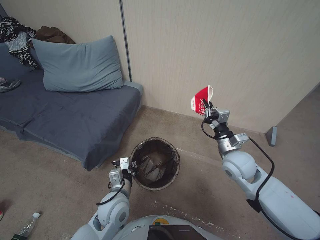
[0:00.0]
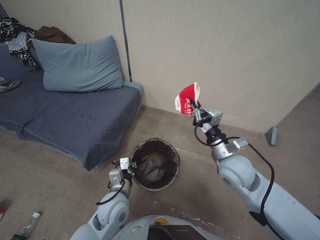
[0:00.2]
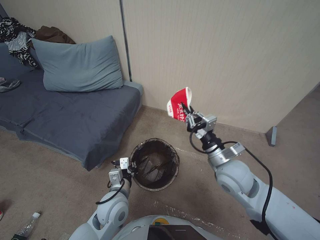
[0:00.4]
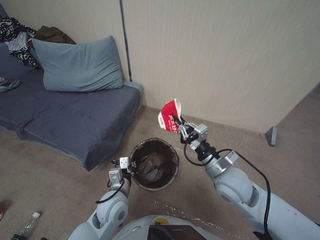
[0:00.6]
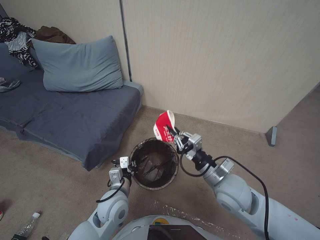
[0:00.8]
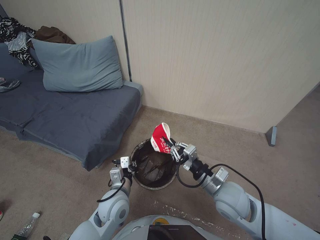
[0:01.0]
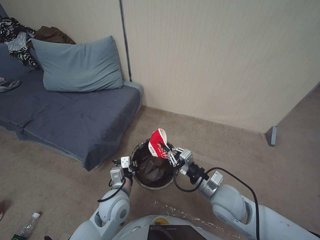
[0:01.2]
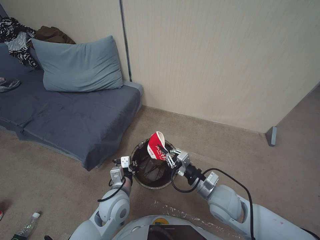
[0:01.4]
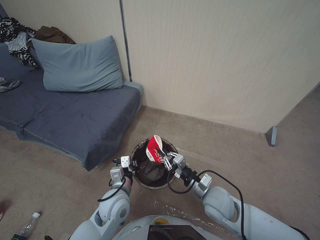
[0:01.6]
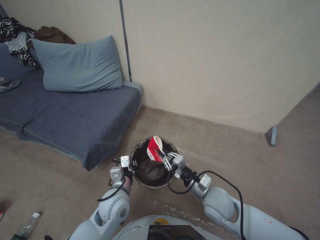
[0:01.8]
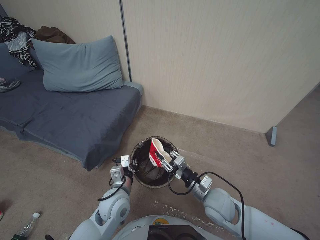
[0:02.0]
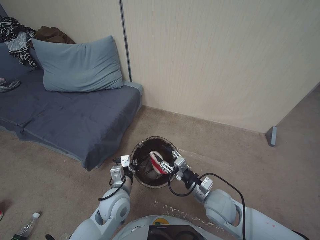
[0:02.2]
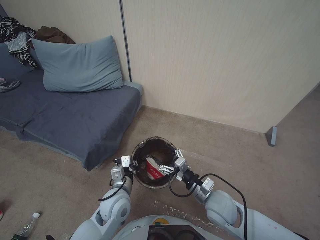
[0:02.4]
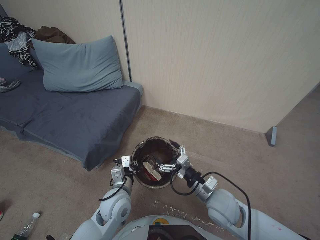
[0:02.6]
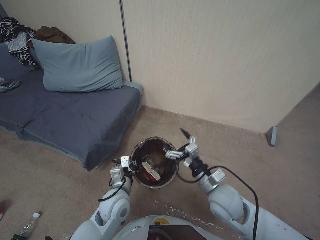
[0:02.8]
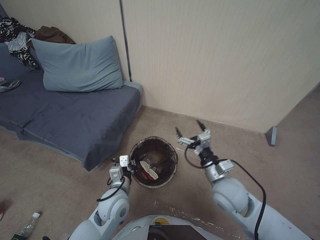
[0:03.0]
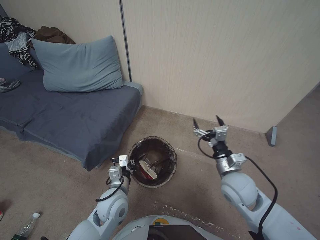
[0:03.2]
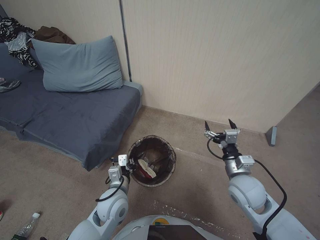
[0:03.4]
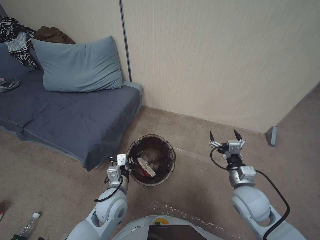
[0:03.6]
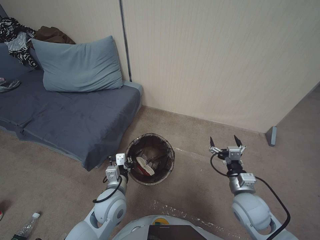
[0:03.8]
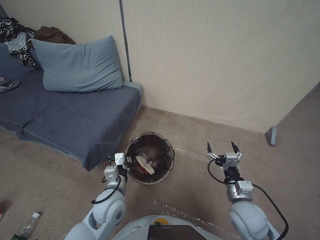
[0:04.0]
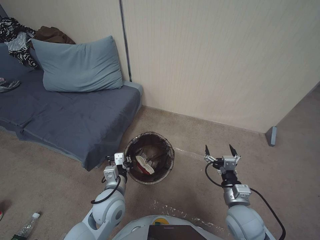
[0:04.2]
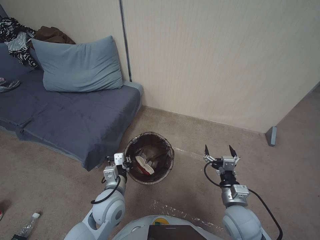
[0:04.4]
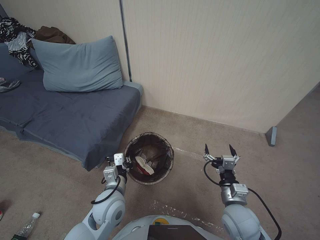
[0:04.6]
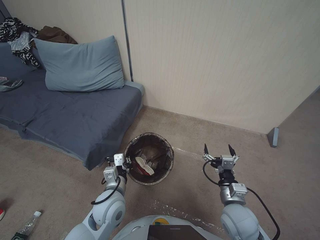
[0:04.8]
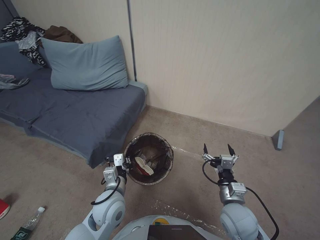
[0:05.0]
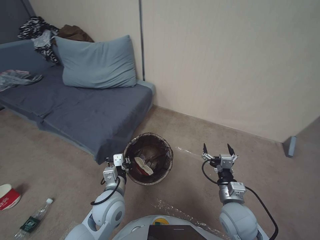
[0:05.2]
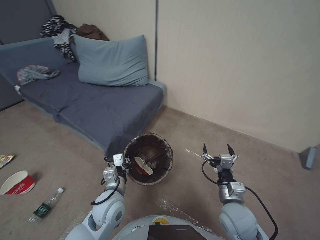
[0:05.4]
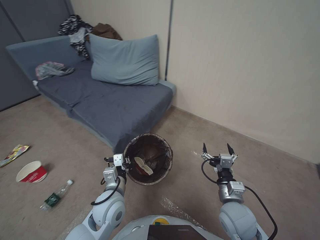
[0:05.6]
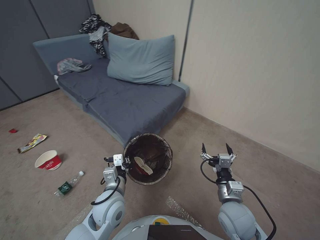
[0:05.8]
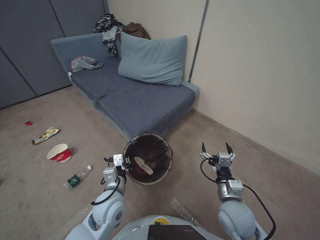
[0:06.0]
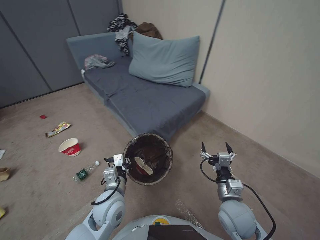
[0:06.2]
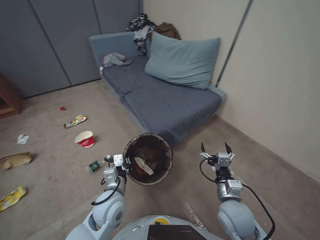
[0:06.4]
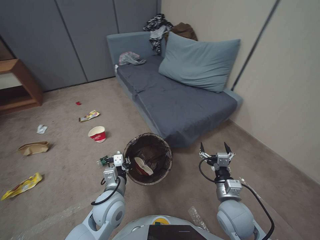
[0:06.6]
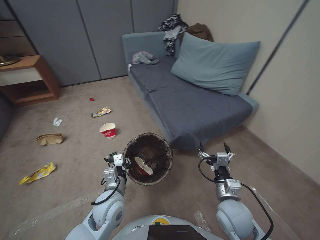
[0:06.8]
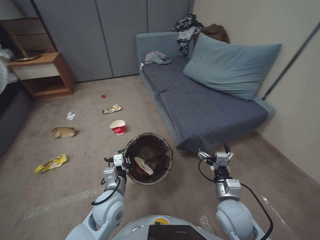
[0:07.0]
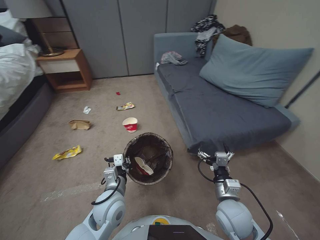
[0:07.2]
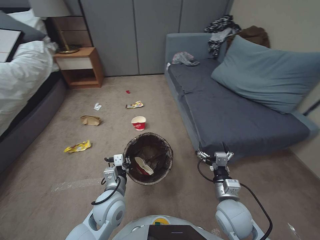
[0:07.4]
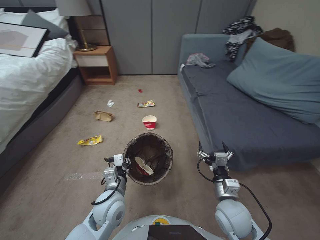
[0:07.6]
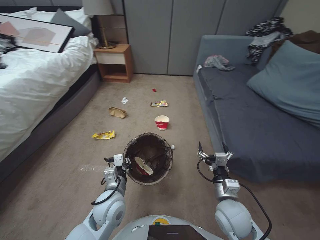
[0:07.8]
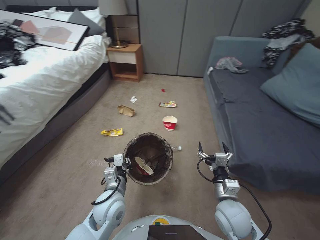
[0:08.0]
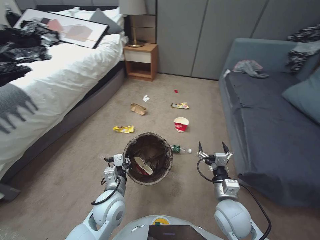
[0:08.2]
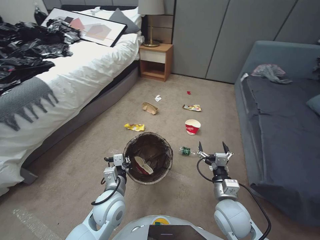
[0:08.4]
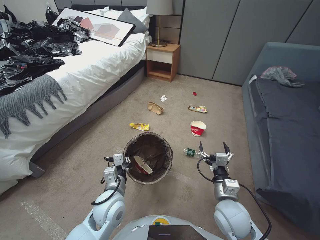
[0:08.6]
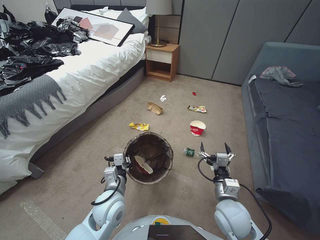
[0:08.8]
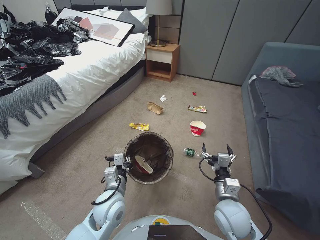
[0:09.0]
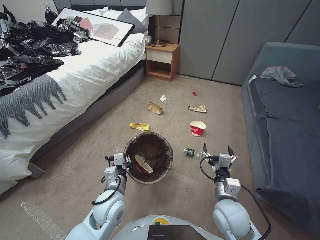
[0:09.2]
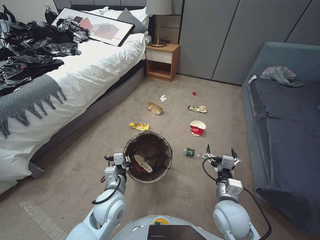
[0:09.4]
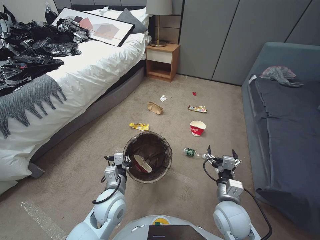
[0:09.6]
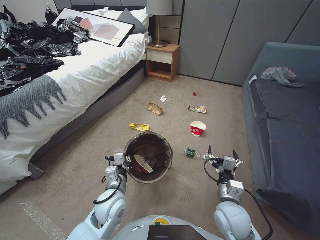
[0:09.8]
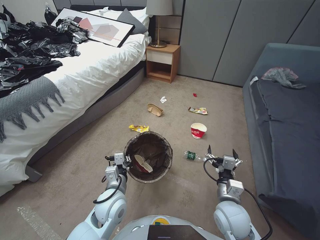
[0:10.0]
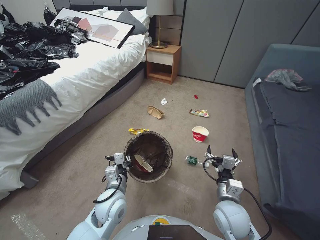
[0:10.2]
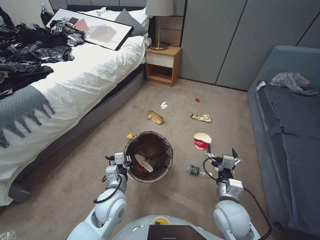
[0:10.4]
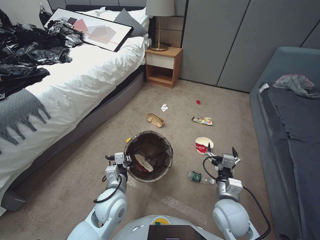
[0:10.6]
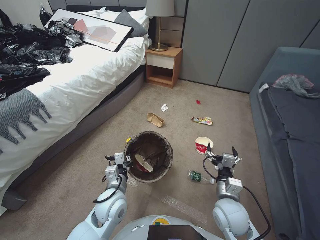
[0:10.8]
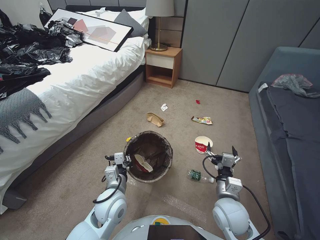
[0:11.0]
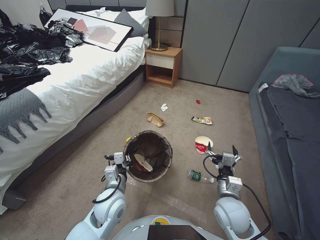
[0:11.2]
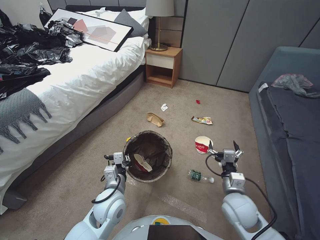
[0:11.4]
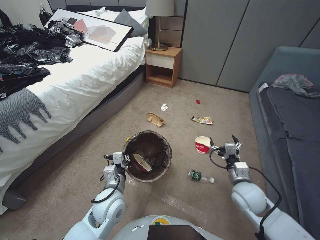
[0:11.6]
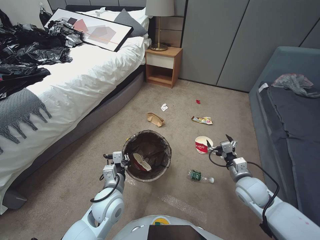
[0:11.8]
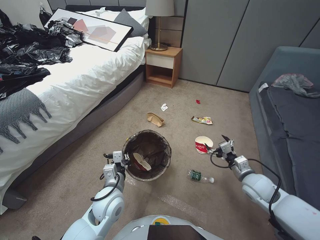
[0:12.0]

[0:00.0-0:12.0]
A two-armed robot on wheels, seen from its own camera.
Task of the whole recording: Pick up the trash bin, then pick up the garbage from the floor and place it into the trash bin.
0:00.0 to 0:01.6: The right gripper travels backward and to the left by approximately 15 cm.
0:01.6 to 0:03.0: The right gripper opens.
0:03.0 to 0:04.4: The right gripper is displaced backward and downward by about 10 cm.
0:10.4 to 0:12.0: The right gripper heads to the right and forward, covering about 15 cm.

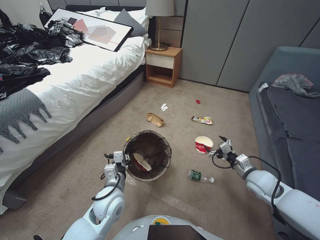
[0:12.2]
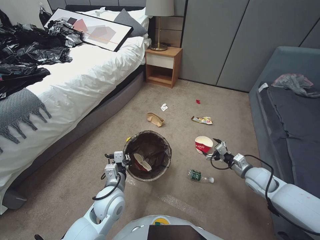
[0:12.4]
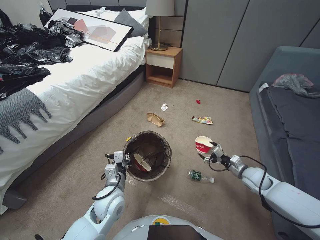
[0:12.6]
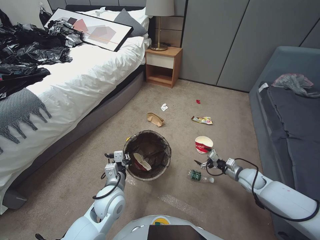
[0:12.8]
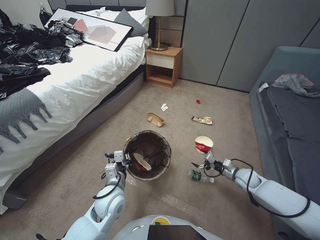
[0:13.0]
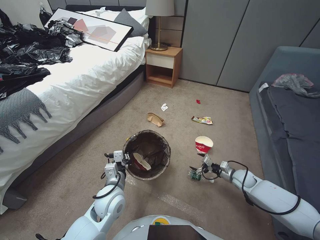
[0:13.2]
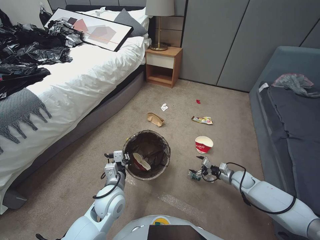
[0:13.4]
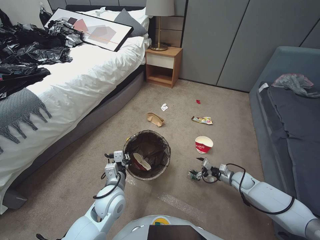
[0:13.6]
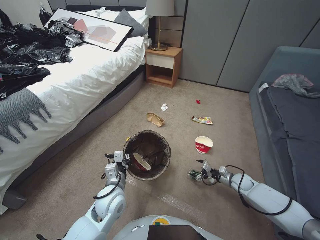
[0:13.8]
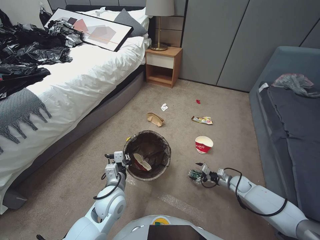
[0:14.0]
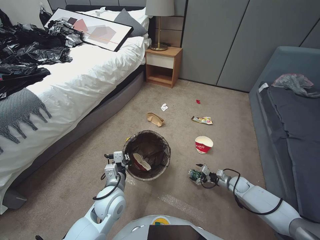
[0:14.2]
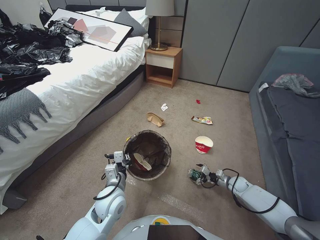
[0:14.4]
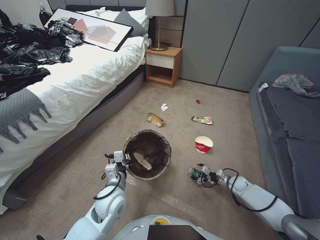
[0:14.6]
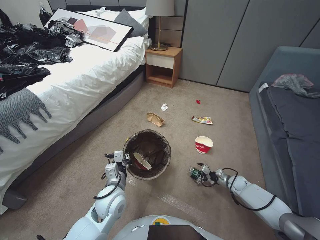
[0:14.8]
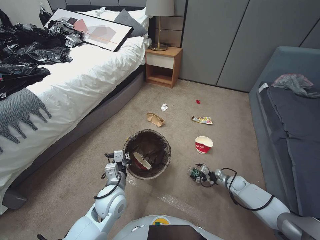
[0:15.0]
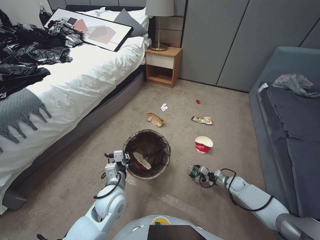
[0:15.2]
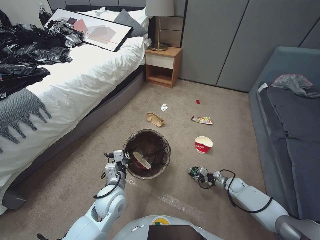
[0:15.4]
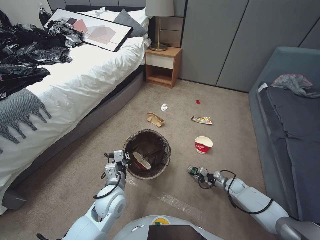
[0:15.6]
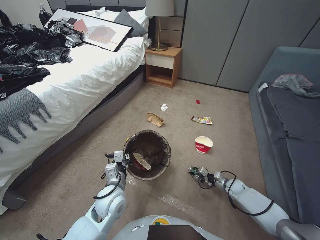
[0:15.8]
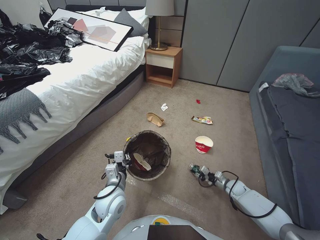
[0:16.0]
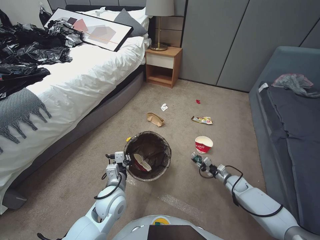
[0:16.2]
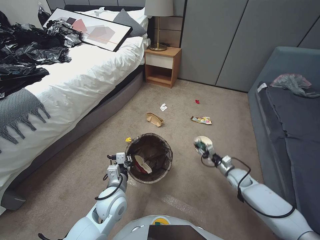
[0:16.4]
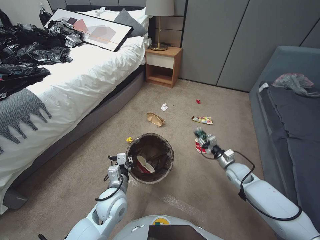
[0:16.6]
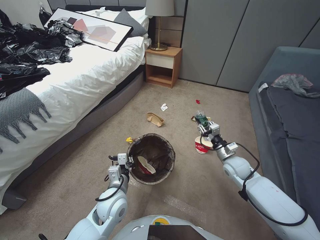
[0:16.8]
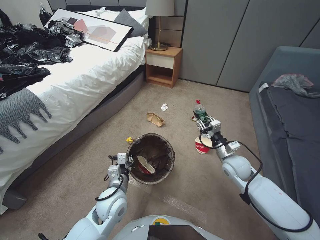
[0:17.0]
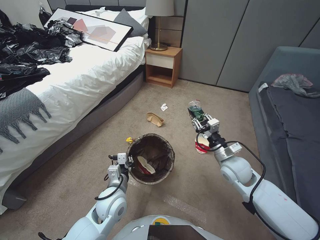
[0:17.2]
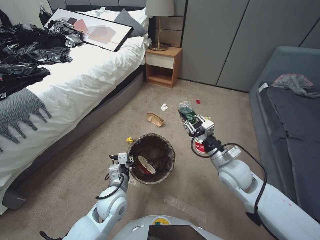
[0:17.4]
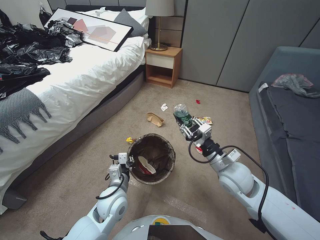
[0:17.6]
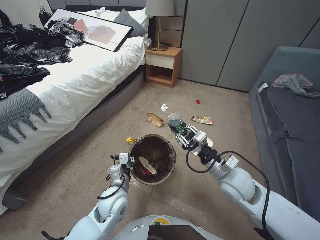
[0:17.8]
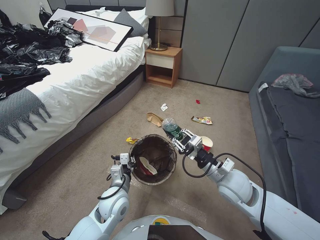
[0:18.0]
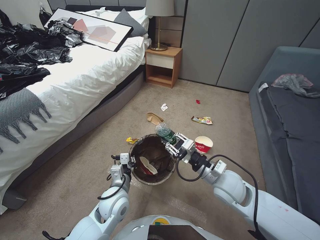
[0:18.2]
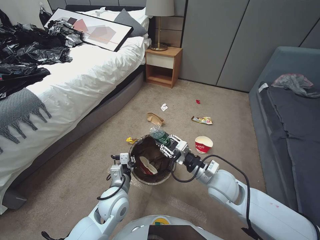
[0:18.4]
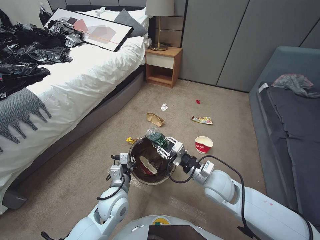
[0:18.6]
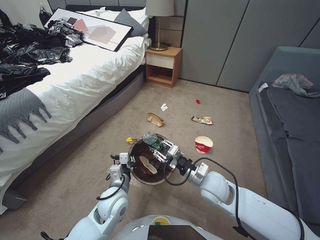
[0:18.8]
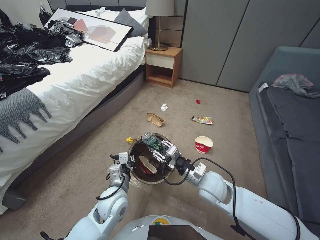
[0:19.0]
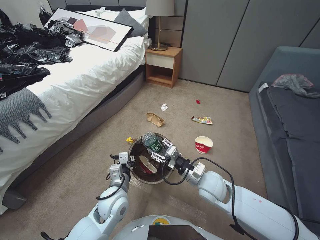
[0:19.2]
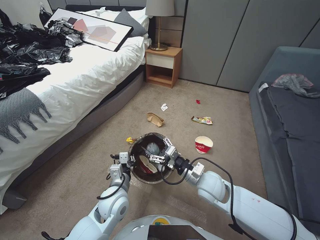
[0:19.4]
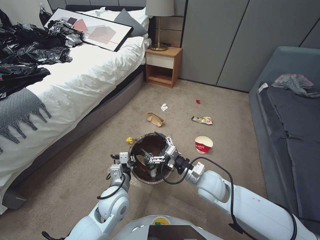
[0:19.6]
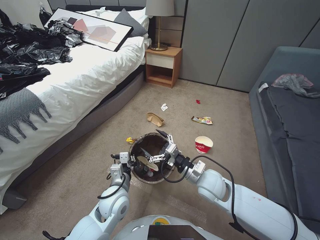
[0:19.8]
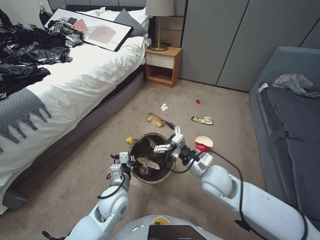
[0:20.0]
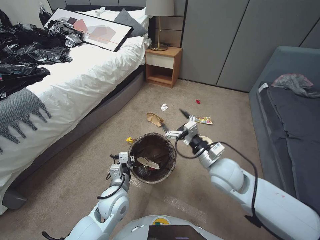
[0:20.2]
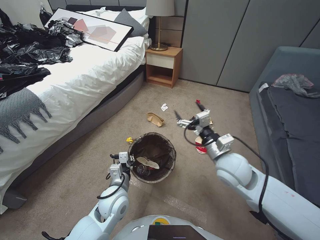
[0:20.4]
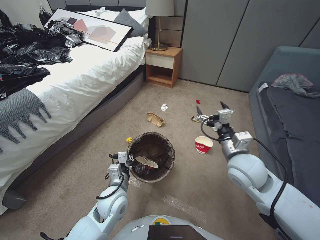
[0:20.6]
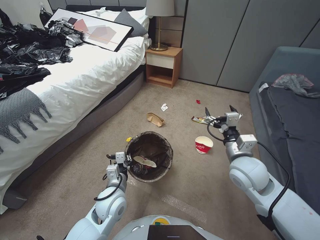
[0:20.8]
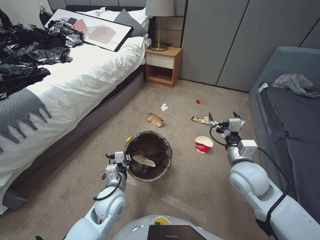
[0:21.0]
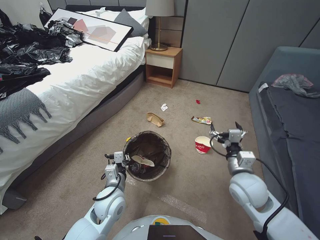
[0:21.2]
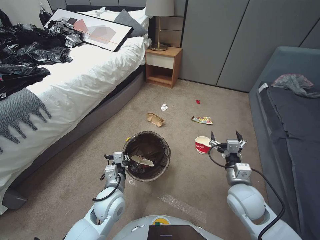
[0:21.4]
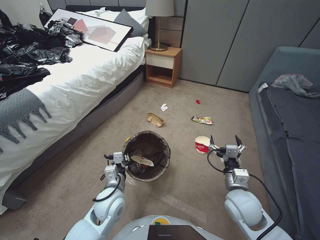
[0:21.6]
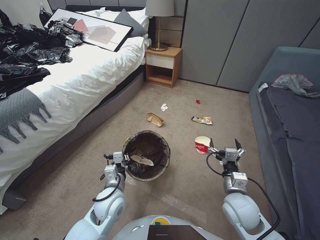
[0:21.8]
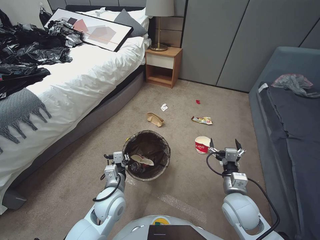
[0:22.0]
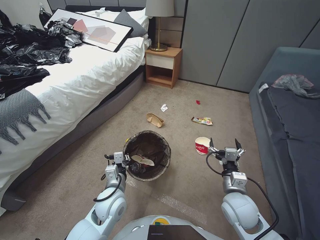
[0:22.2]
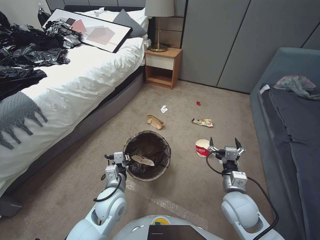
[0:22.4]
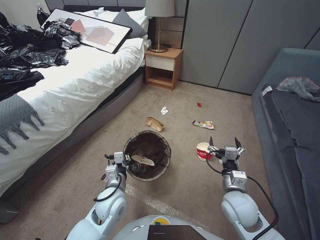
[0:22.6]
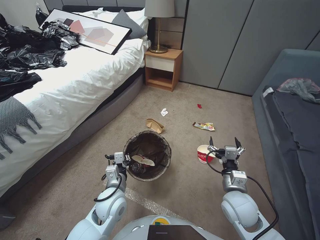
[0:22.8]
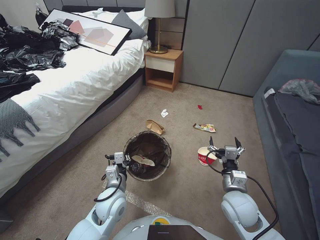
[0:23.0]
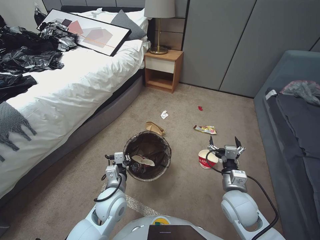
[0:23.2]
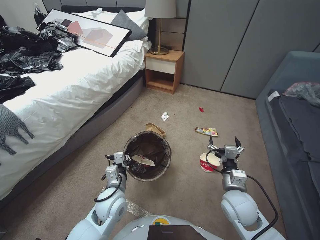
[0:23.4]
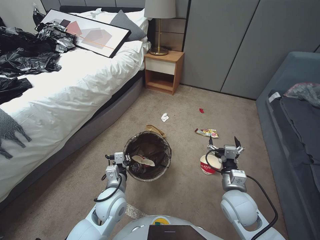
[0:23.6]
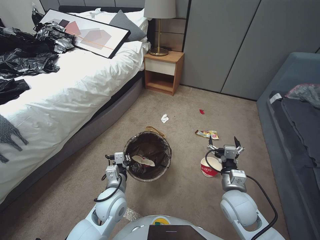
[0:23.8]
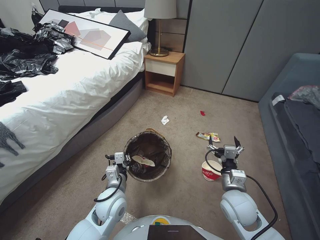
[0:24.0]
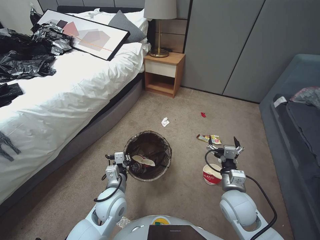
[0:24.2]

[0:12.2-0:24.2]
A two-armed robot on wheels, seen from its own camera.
Task of the whole recording: Pick up the trash bin, then pick up the garbage from the floor and place it into the trash bin.
0:12.2 to 0:13.8: The right gripper moves downward and forward, roughly 15 cm.
0:13.8 to 0:15.2: The right gripper is displaced downward by approximately 10 cm.
0:15.2 to 0:16.6: The right gripper closes.
0:16.6 to 0:18.2: The right gripper travels upward and to the left by about 30 cm.
0:18.2 to 0:19.8: The right gripper shifts by some 5 cm, and opens.
0:19.8 to 0:21.2: The right gripper heads to the right and upward, covering about 10 cm.
0:21.2 to 0:22.6: The right gripper shifts approximately 5 cm downward.
